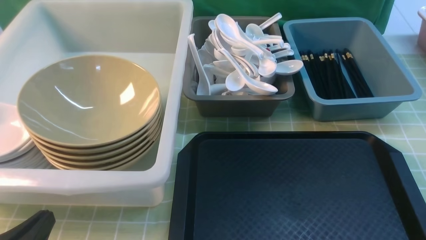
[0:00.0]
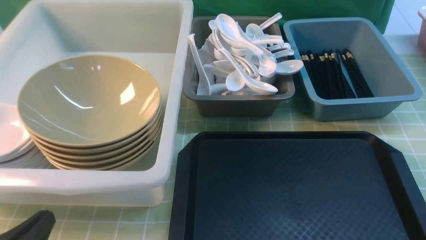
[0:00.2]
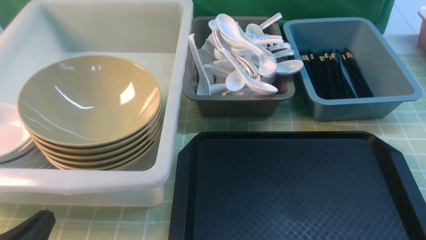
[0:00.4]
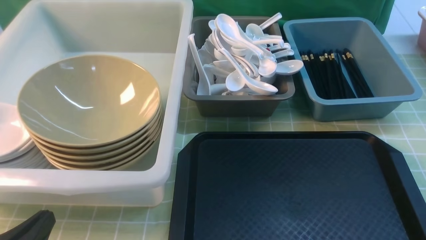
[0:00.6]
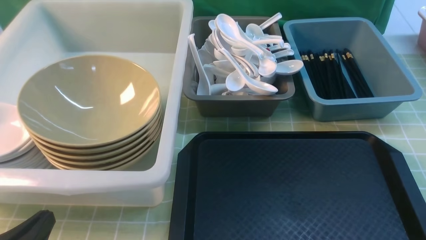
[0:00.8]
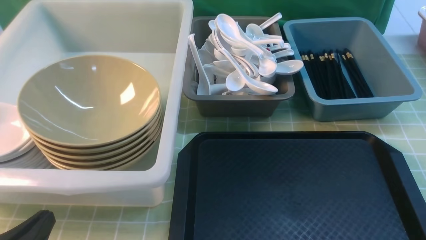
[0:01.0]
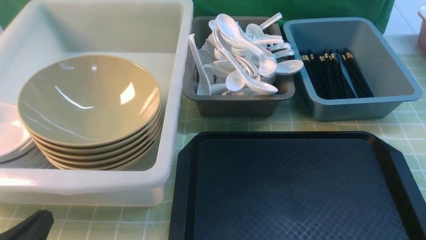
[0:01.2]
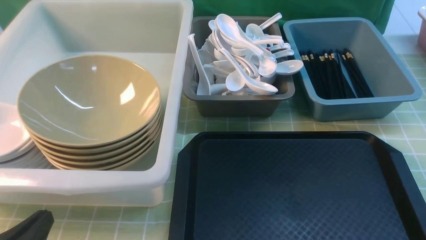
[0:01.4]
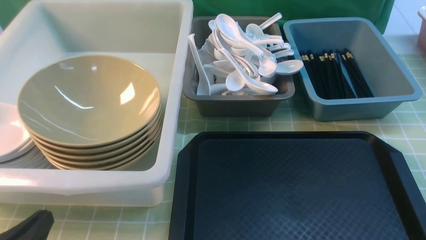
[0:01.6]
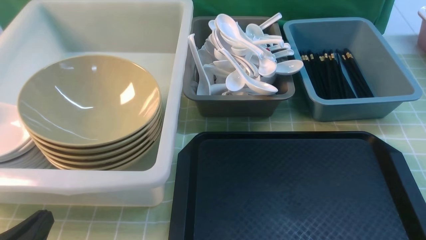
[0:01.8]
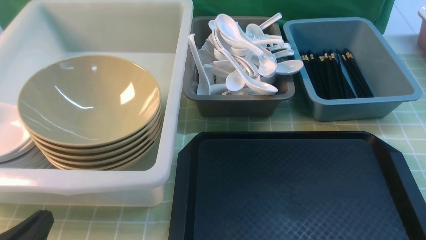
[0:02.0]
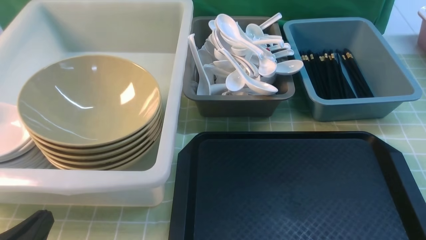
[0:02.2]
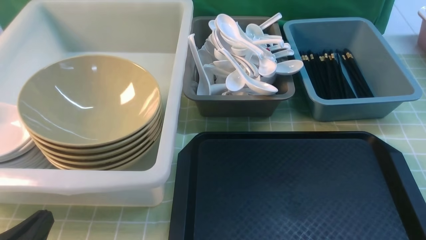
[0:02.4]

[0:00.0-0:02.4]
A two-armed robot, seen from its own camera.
Task of the whole recording: on green table put chopsticks spoon bowls plates into blue grey white boxes.
0:00.0 to 0:02.4: Both grippers stay put.
